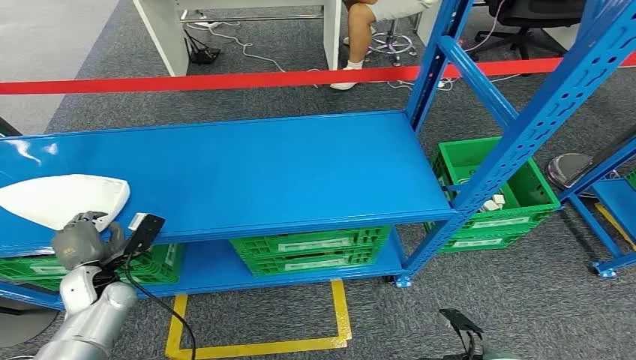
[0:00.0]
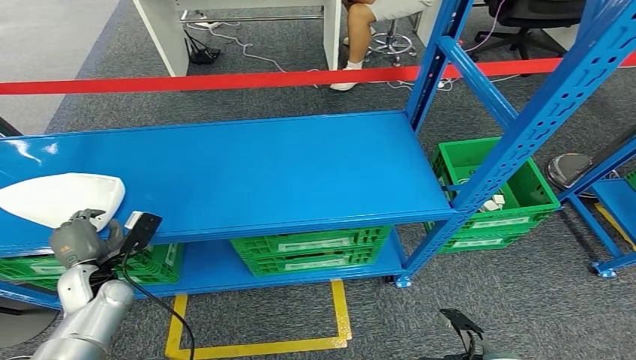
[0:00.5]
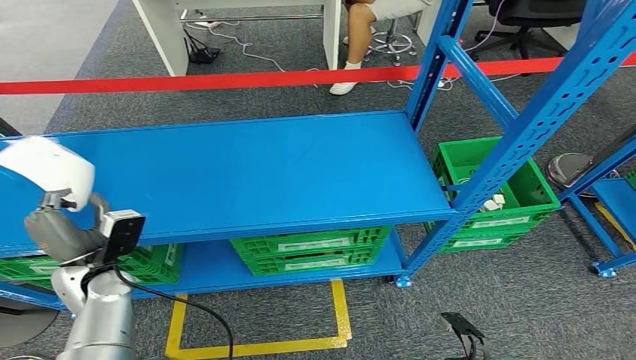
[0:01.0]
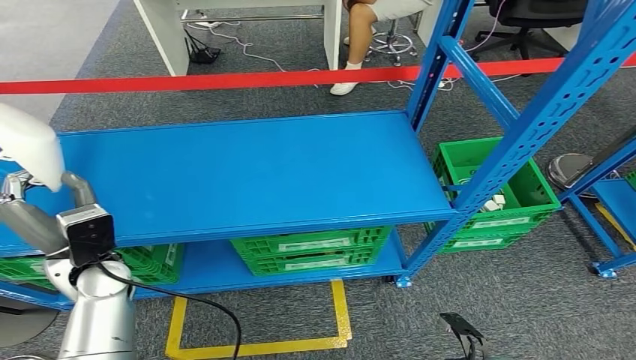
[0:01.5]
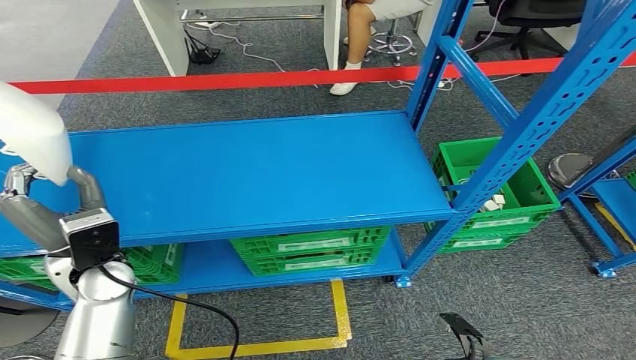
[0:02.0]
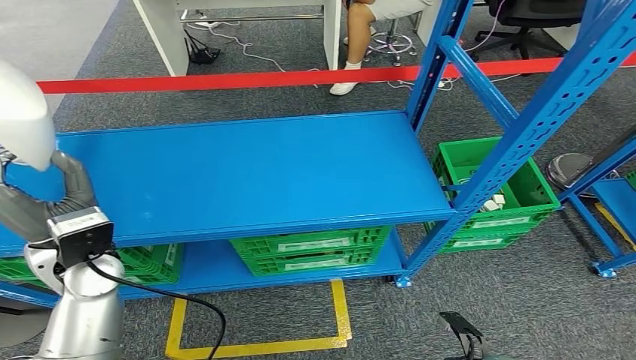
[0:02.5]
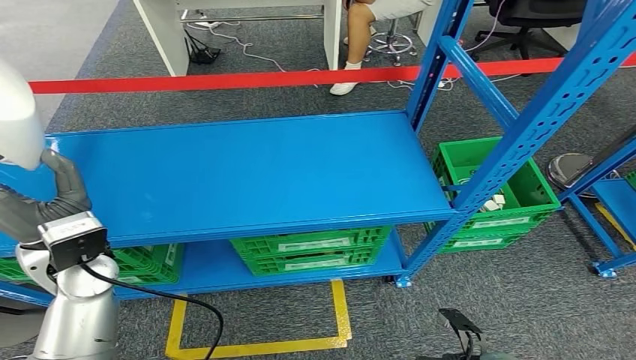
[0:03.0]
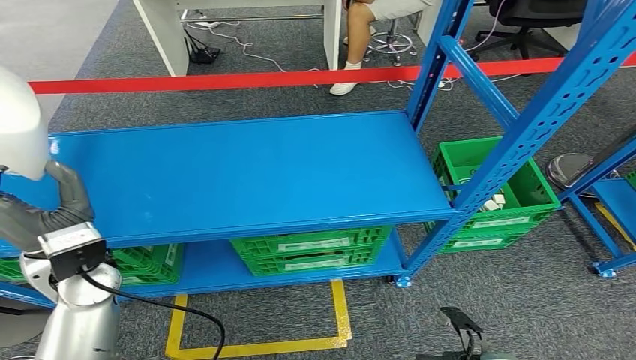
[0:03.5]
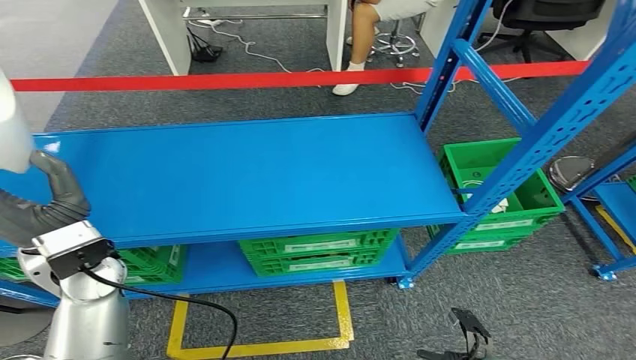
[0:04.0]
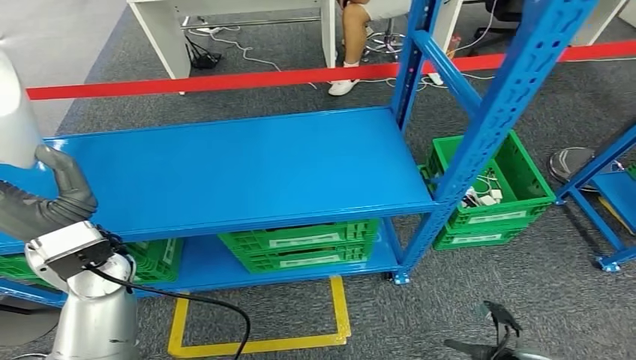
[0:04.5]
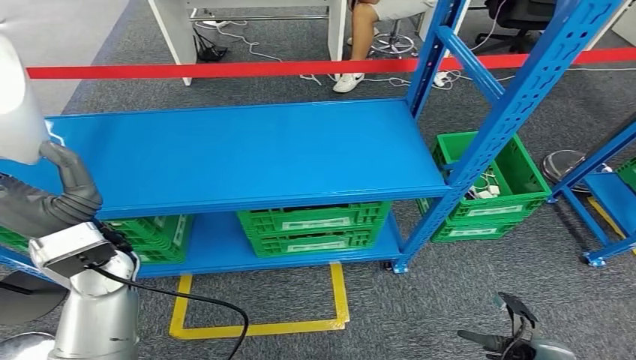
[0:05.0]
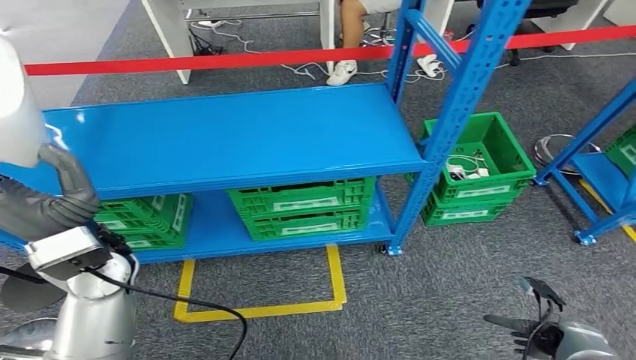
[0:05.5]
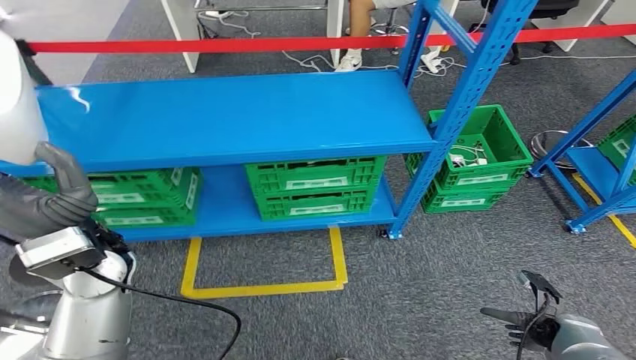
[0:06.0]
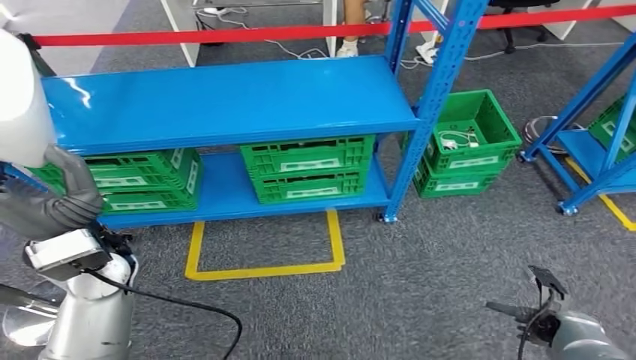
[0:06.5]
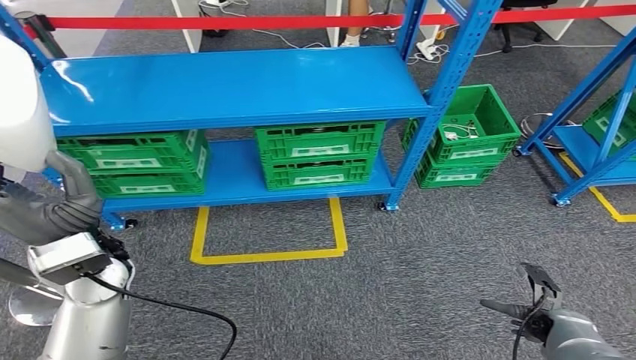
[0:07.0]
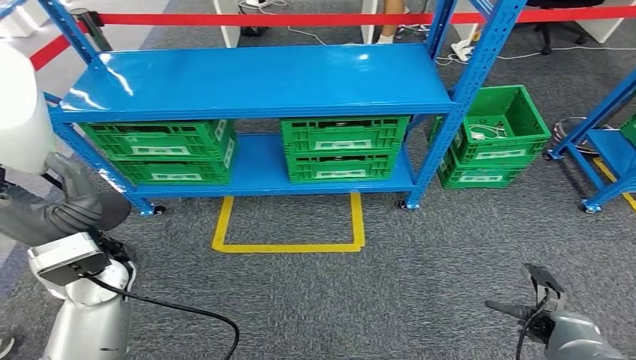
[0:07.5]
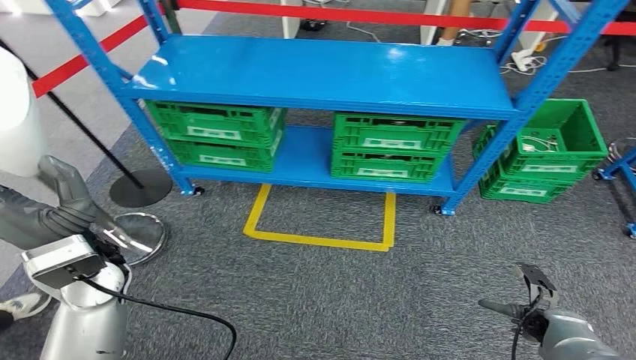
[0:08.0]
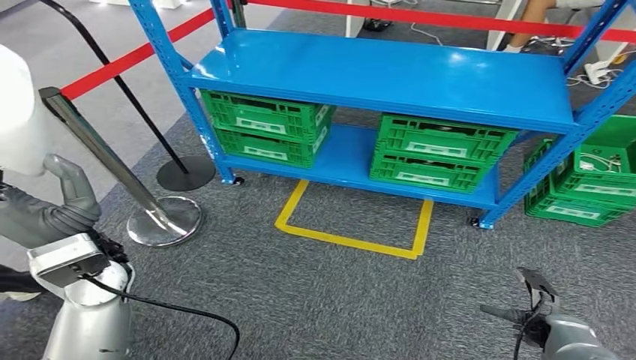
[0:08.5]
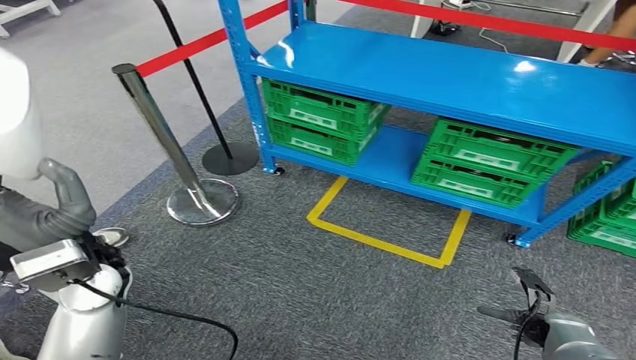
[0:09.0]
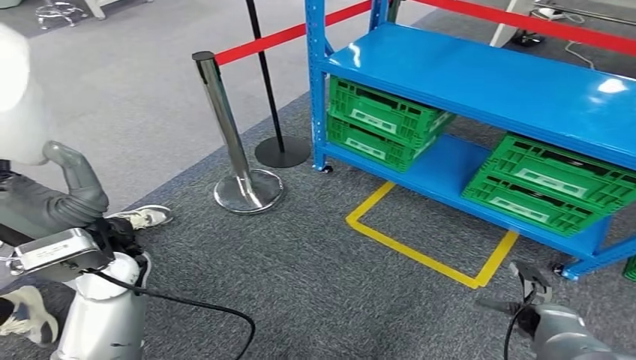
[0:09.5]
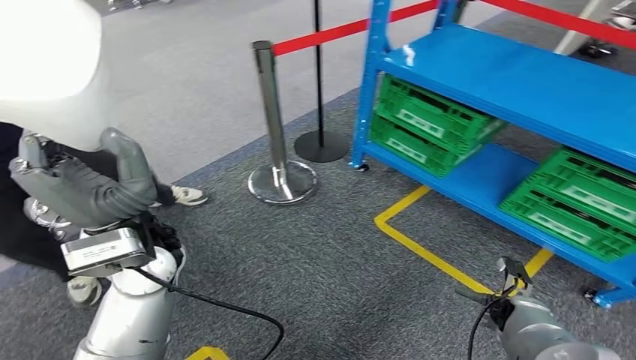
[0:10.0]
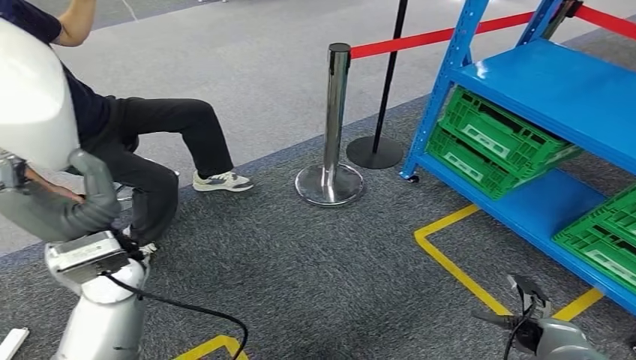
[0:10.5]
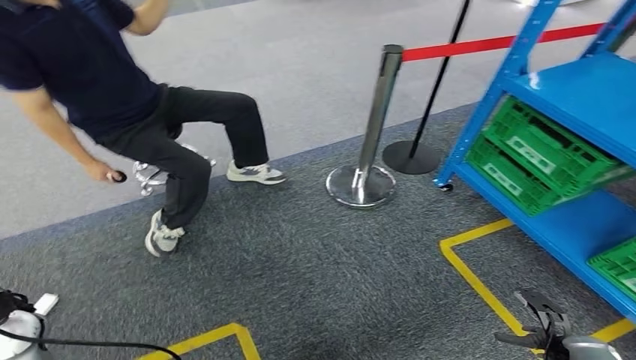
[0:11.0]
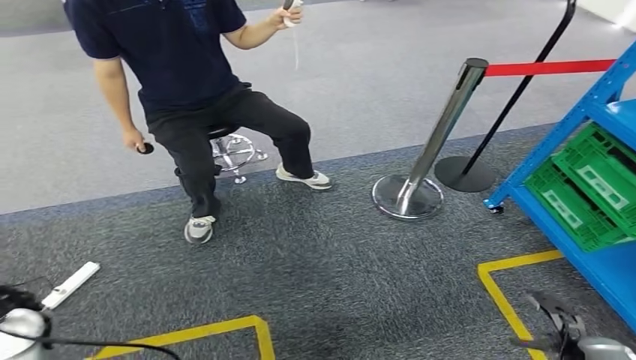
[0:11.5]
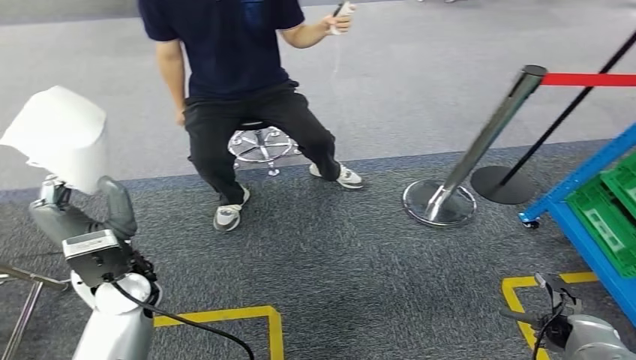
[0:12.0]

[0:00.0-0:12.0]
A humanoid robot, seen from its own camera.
Step, 0:00.0 to 0:05.5: Pick up the small component from the shelf.

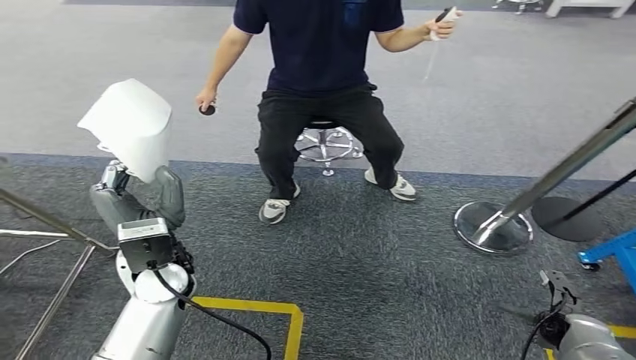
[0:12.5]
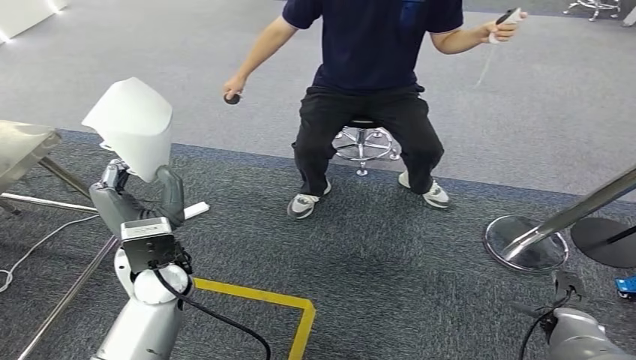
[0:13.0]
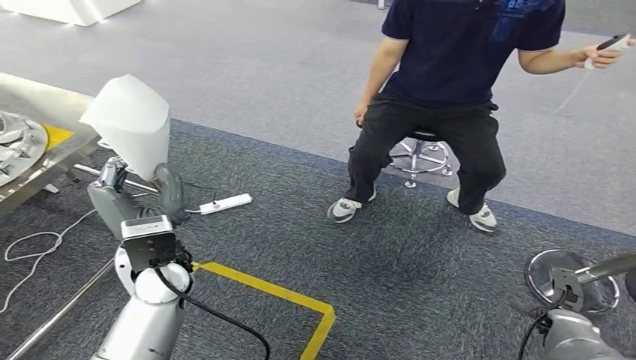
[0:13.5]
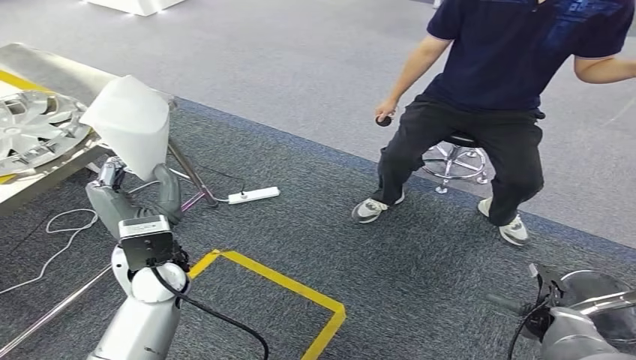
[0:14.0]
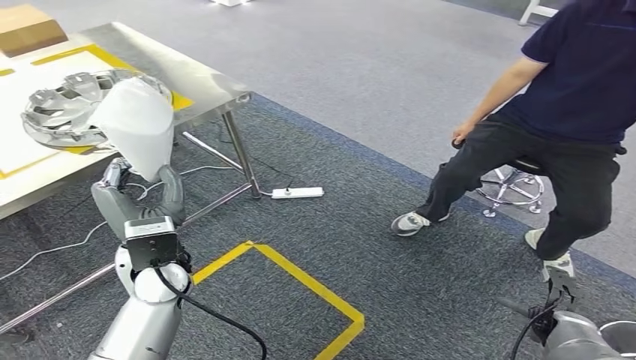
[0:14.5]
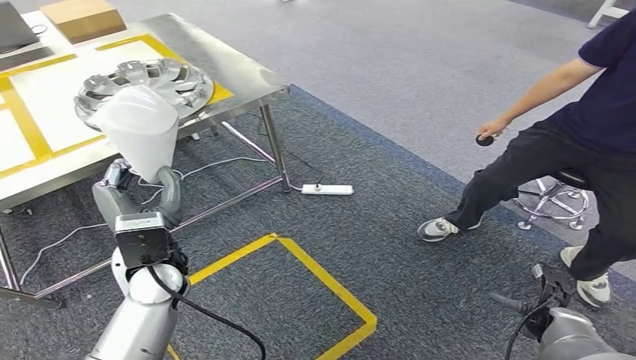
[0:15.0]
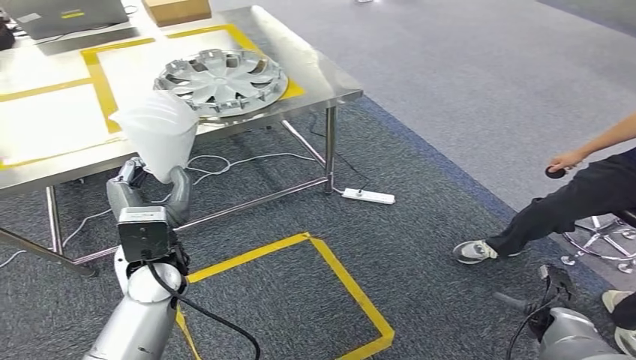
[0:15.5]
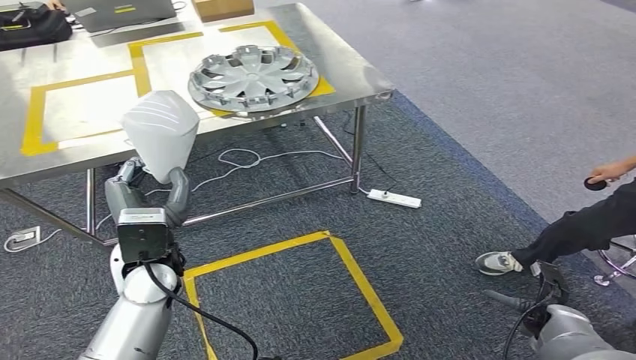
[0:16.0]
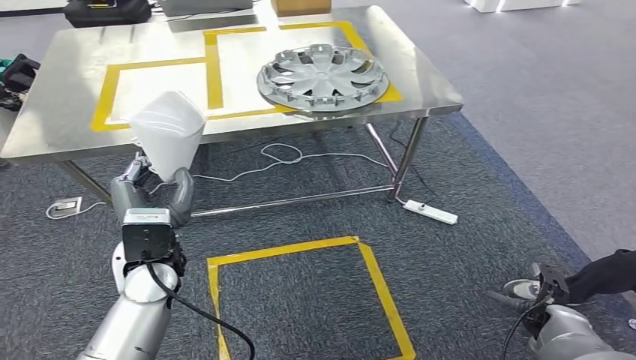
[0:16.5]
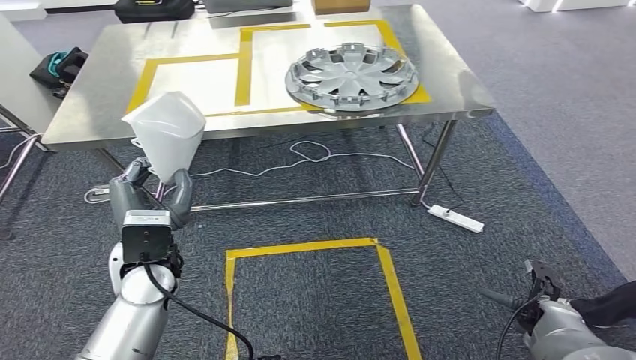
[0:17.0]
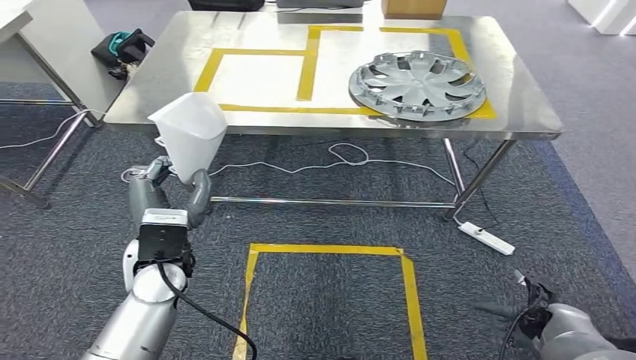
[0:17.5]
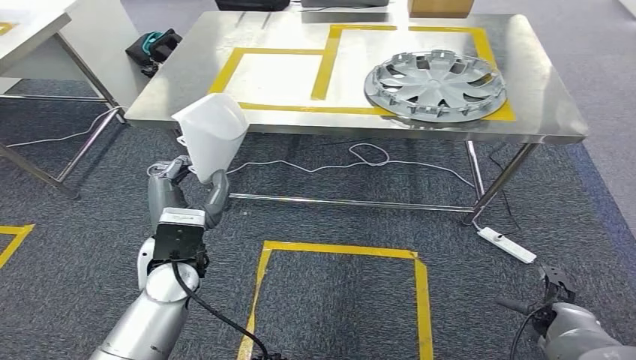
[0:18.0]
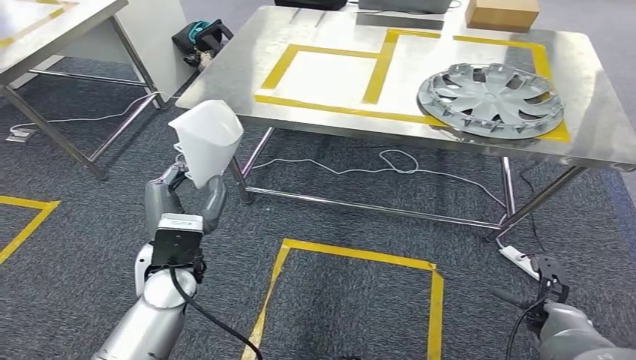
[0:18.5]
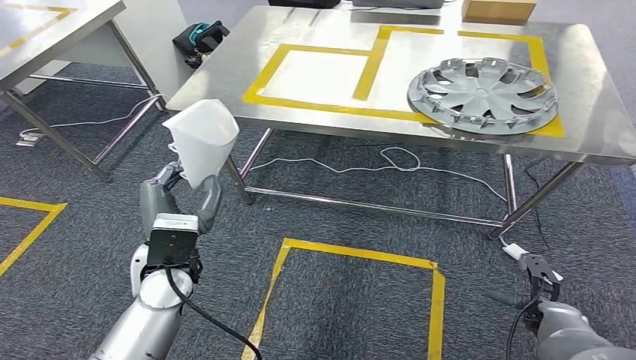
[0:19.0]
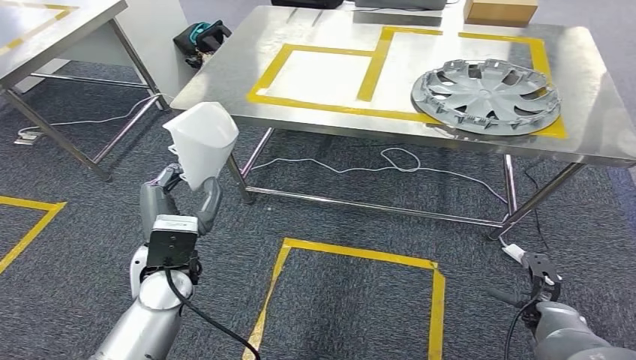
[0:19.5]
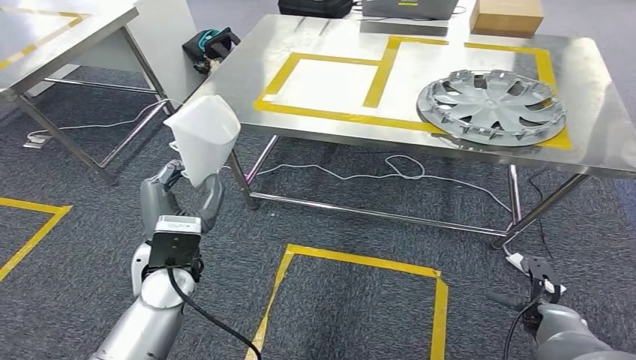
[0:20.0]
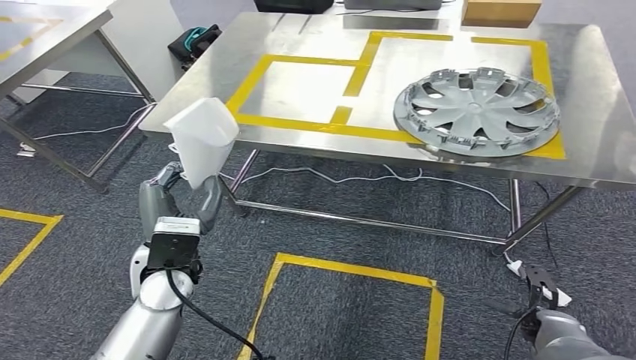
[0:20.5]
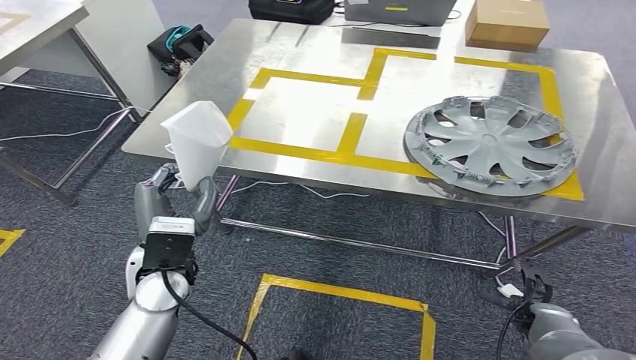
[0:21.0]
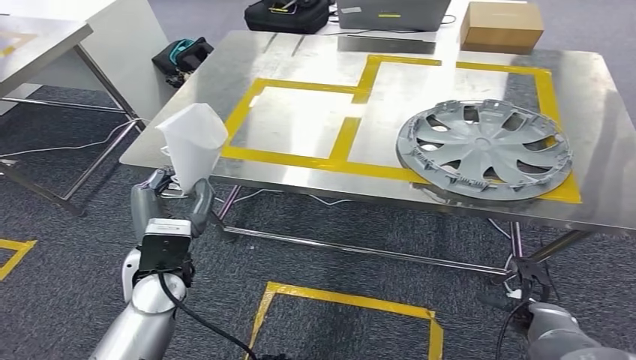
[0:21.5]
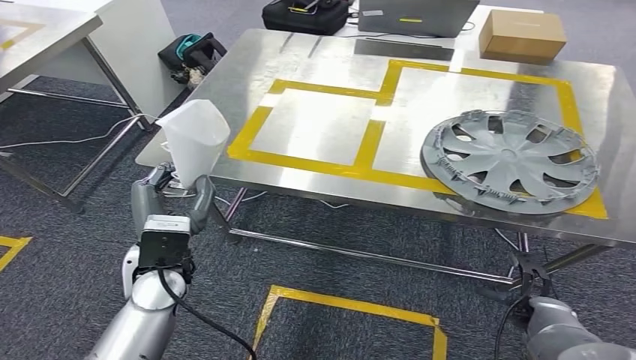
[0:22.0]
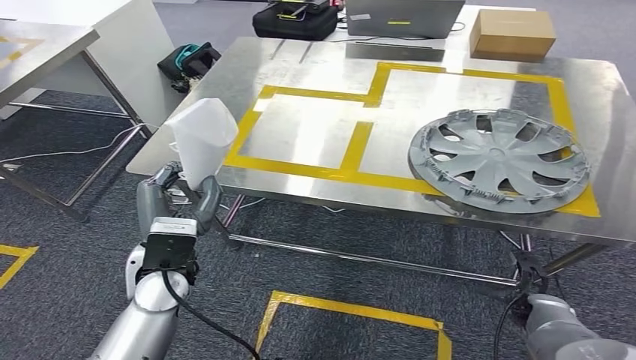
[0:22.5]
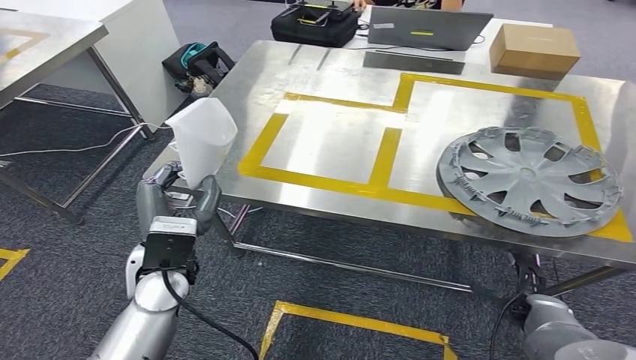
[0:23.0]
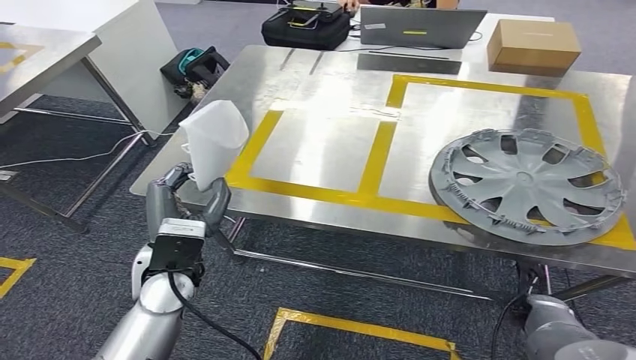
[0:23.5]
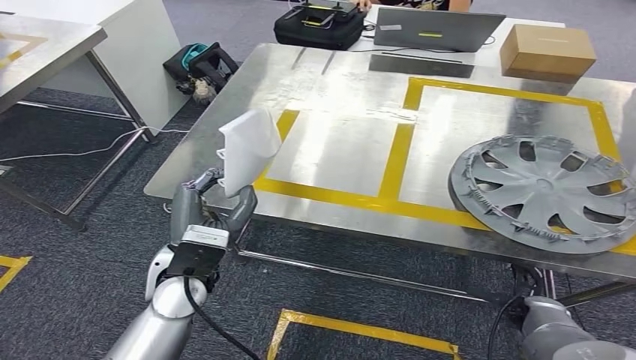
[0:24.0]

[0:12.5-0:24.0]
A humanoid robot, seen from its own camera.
Step, 0:12.5 to 0:18.0: Move the small component to the workbench.
